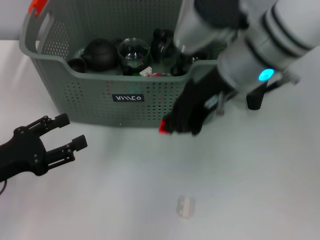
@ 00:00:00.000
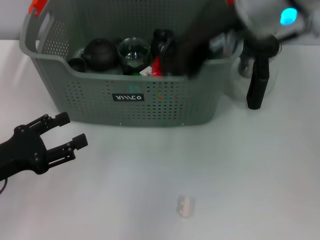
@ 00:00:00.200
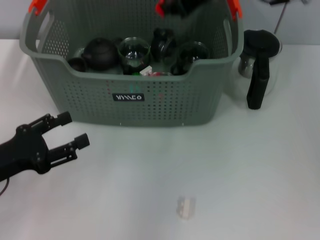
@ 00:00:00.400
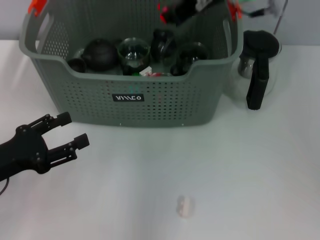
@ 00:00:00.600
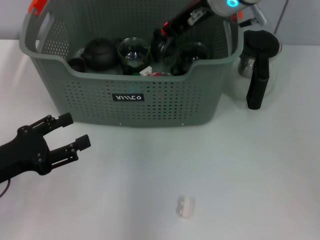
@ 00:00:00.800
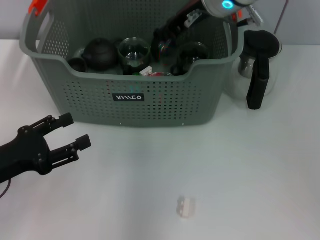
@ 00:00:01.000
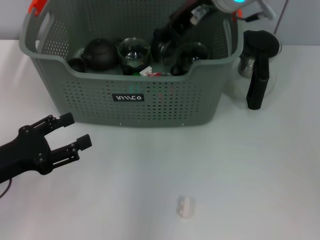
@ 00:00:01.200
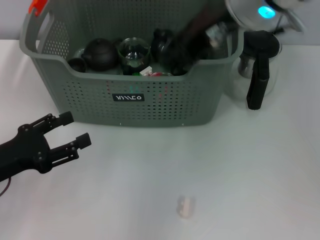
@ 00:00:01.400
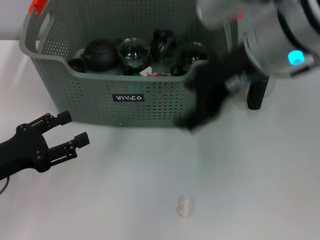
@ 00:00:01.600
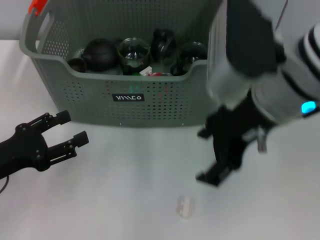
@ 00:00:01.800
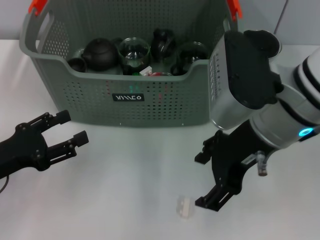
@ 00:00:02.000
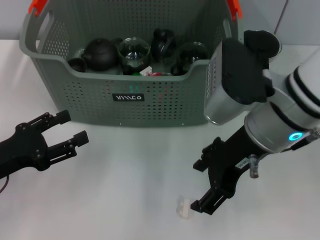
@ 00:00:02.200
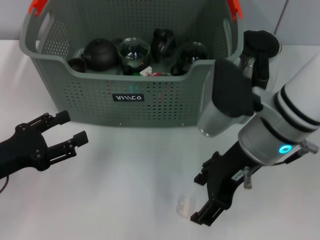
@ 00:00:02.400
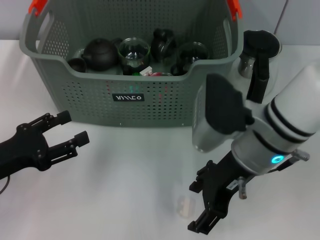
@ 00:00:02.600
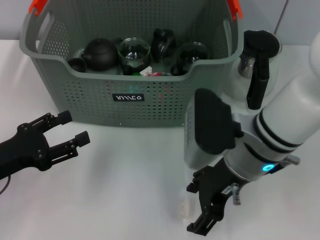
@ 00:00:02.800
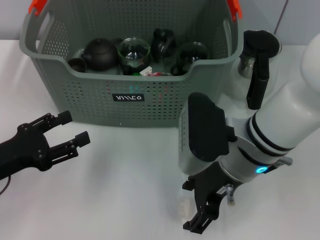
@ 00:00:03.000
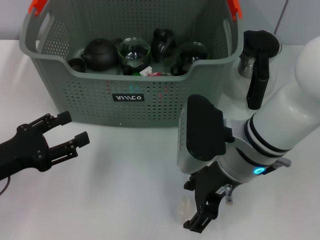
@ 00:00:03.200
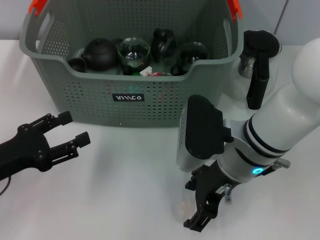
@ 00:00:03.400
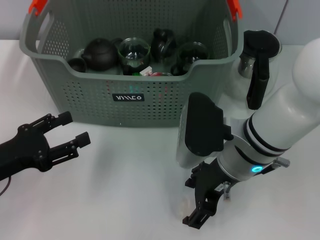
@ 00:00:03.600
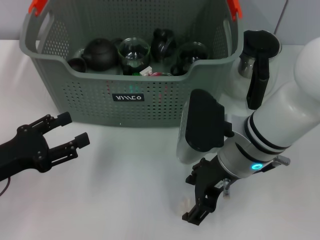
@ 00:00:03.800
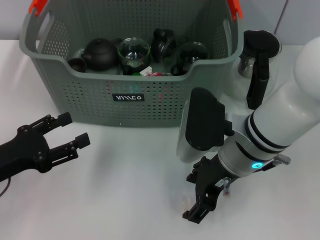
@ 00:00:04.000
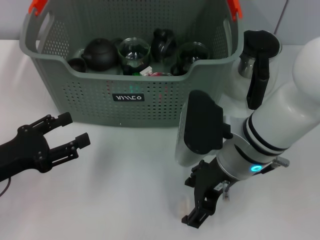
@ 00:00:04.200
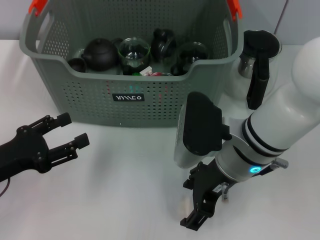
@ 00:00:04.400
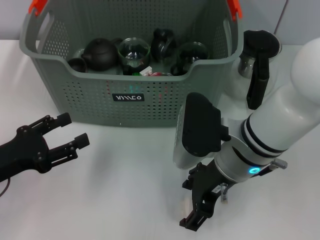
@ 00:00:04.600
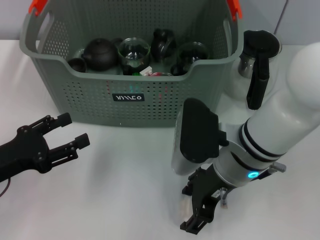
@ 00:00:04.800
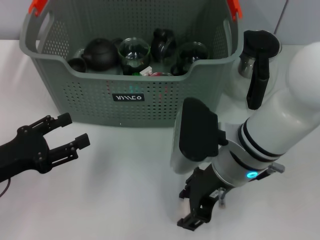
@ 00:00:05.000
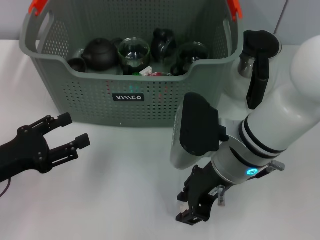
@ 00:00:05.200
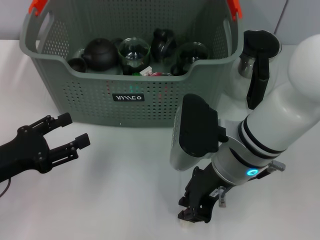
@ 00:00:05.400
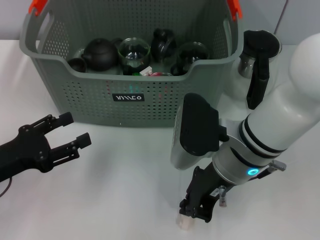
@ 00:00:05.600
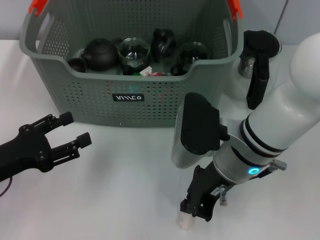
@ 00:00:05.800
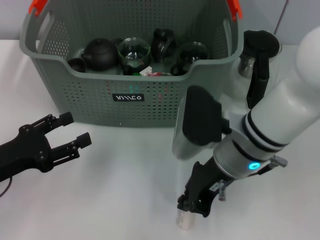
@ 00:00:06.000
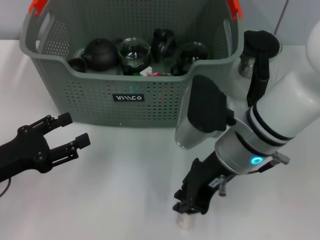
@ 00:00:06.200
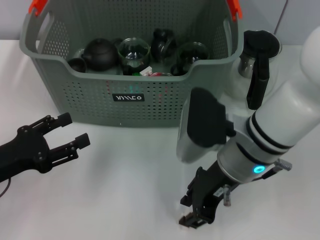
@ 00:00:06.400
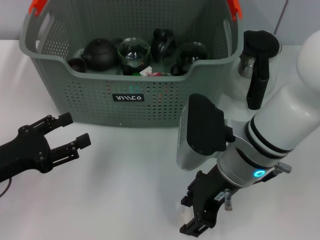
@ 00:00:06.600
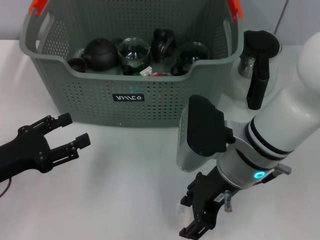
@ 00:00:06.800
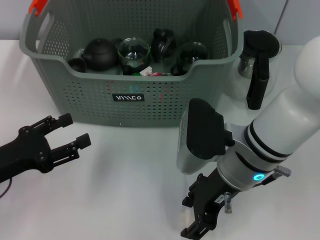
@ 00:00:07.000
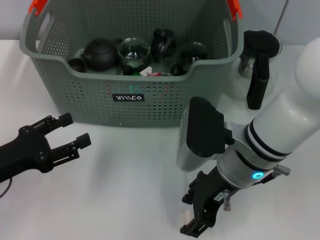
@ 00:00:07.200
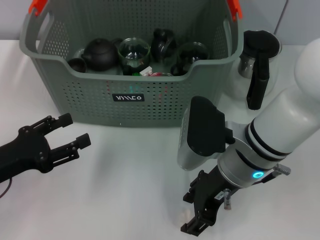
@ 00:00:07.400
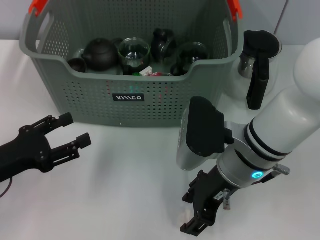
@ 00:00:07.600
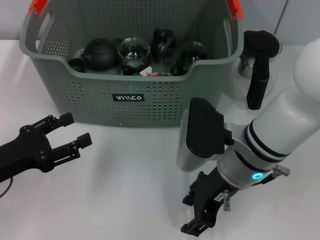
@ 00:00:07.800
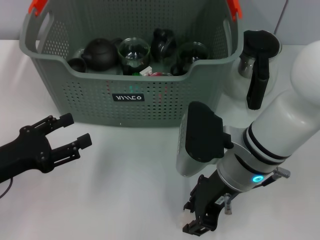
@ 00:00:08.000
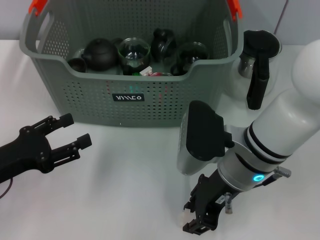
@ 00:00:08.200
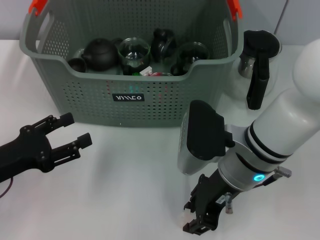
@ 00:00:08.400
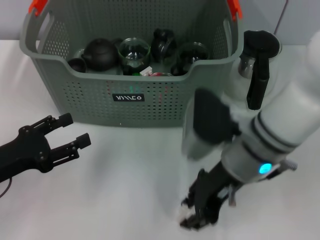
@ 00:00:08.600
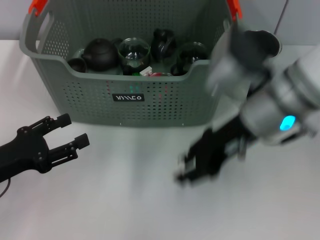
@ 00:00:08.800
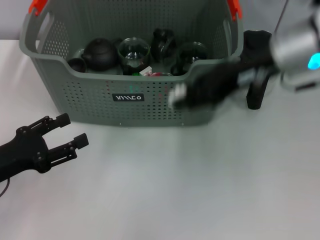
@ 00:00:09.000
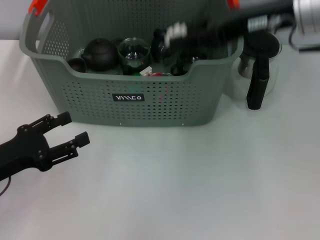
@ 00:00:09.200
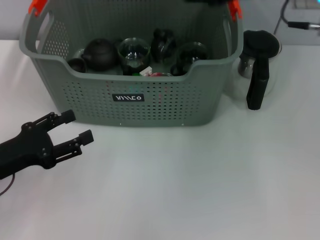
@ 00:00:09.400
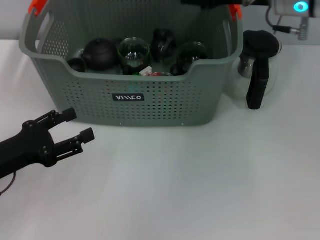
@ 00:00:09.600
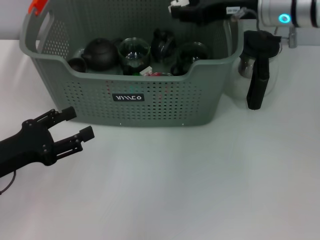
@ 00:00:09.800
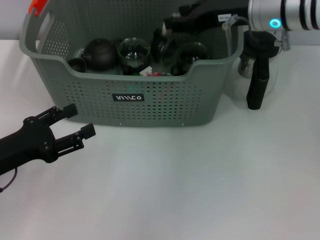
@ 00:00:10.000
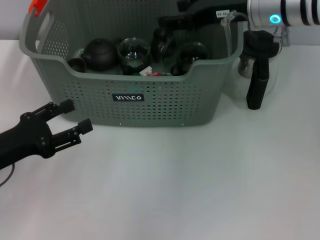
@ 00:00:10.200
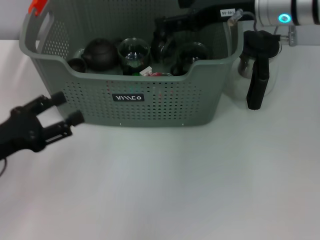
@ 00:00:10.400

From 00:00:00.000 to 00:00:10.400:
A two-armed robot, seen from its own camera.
Task of the whole recording: pick up the teacup on the table and place it into the storage bin, pick up the block on the table and place it into the storage bin.
Step, from 00:00:01.200 to 00:00:08.000: Grasp the white block with right gripper.
Step, from 00:00:08.200 to 00:00:10.000: Place the white block in the storage box with right gripper.
From 00:00:00.000 to 00:00:01.400: The right gripper reaches about 10 cm forward, then returns, and opens.
From 00:00:01.400 to 00:00:03.000: The right gripper moves downward and backward, roughly 15 cm, and opens up.
From 00:00:03.000 to 00:00:04.400: There are only small adjustments of the grippers.
From 00:00:04.400 to 00:00:06.000: The right gripper closes up.
From 00:00:06.000 to 00:00:07.400: The right gripper opens up.
From 00:00:07.400 to 00:00:09.000: The right gripper heads upward, to the right and forward, covering about 15 cm.
From 00:00:09.000 to 00:00:10.400: The right gripper heads forward, covering approximately 5 cm, and opens up.

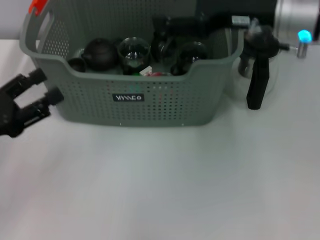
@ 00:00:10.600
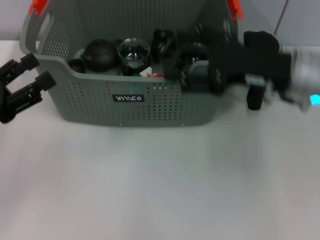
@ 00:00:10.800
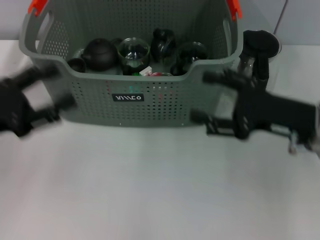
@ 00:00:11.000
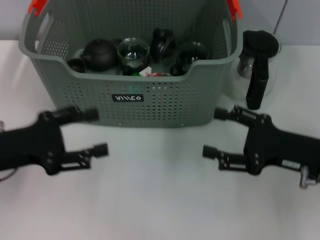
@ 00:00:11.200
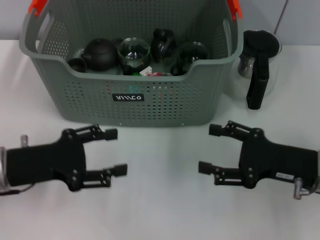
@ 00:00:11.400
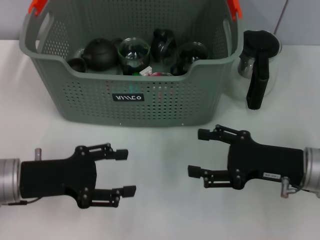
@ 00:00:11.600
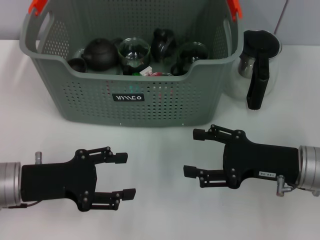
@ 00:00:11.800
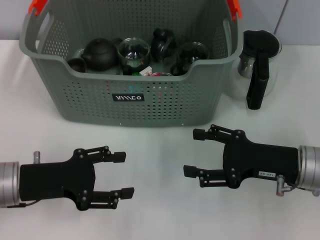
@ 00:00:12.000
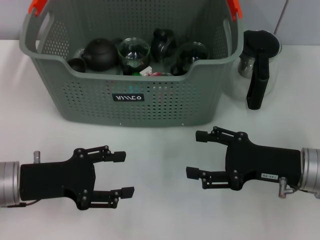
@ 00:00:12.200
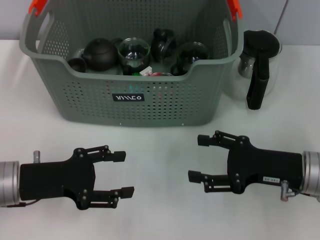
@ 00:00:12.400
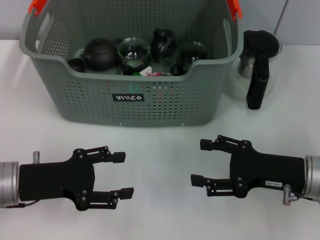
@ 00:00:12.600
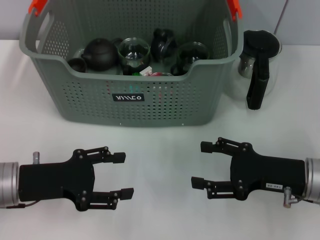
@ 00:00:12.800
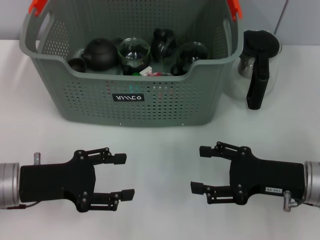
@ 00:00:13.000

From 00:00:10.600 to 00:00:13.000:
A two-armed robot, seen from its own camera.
Task of the whole recording: pick up the teacup on the table and place it into the storage bin, pick up the block on the table and place it into the storage bin.
From 00:00:10.600 to 00:00:11.800: The right gripper shifts roughly 20 cm downward and backward. Meanwhile the left gripper heads to the right, covering some 5 cm.
From 00:00:11.800 to 00:00:13.000: There are only small adjustments of the grippers.
